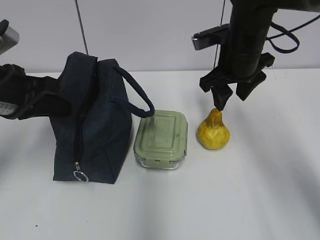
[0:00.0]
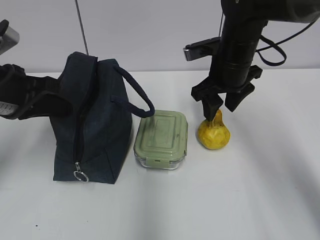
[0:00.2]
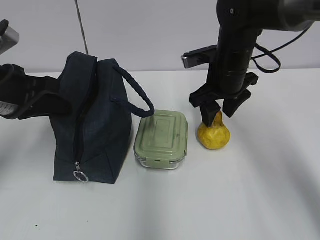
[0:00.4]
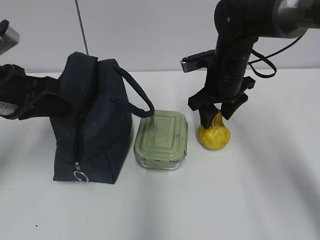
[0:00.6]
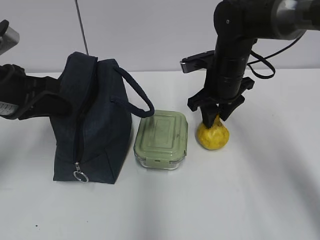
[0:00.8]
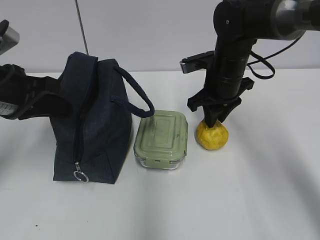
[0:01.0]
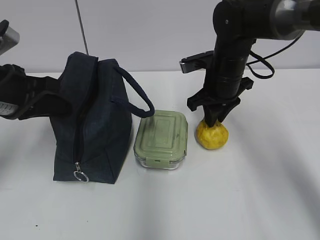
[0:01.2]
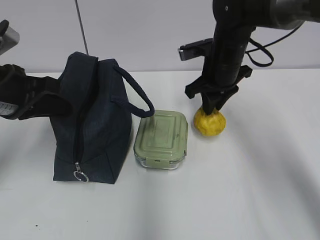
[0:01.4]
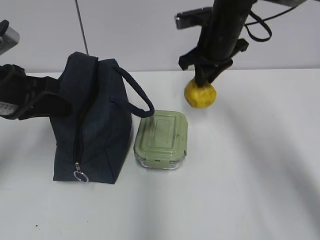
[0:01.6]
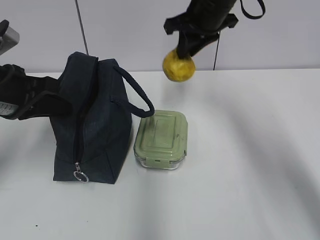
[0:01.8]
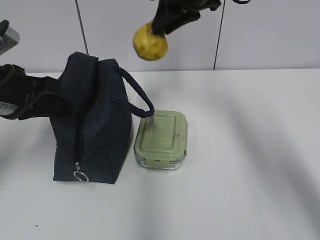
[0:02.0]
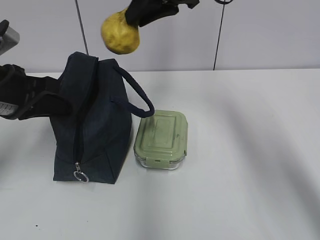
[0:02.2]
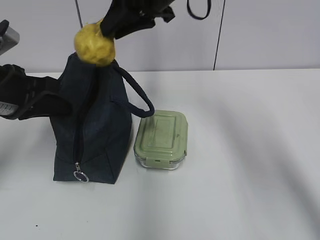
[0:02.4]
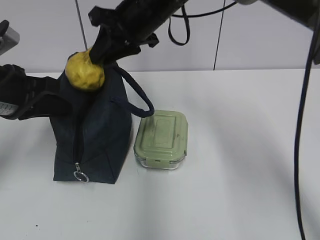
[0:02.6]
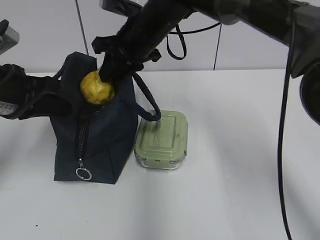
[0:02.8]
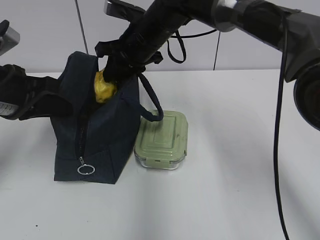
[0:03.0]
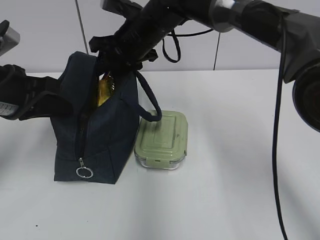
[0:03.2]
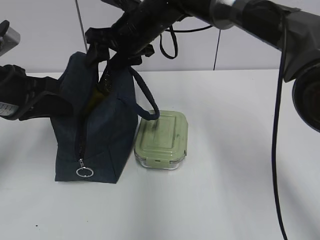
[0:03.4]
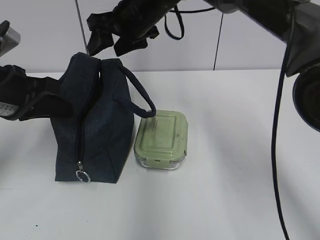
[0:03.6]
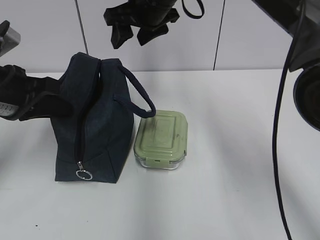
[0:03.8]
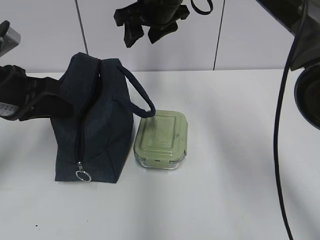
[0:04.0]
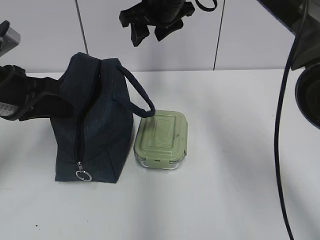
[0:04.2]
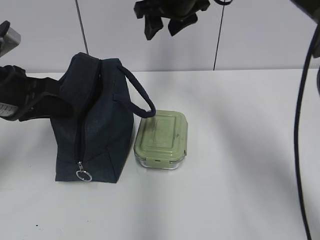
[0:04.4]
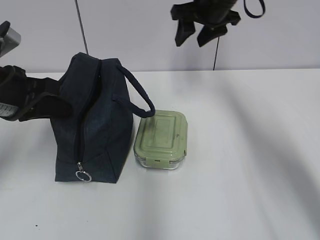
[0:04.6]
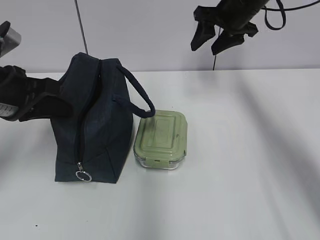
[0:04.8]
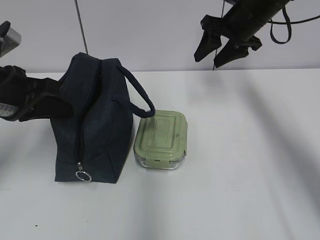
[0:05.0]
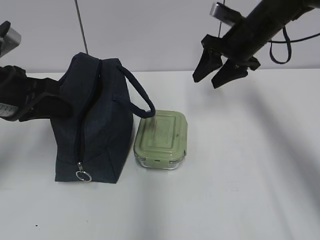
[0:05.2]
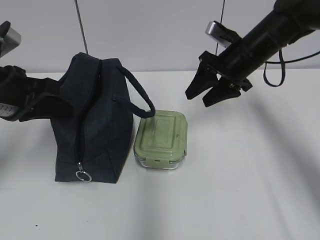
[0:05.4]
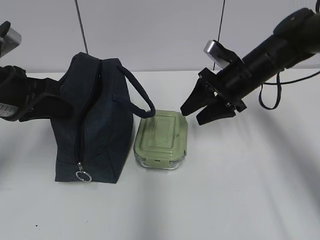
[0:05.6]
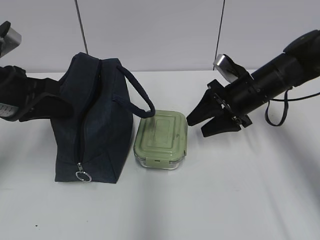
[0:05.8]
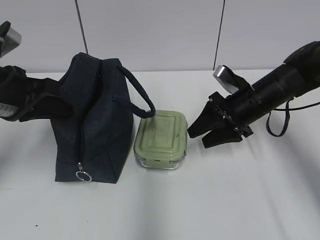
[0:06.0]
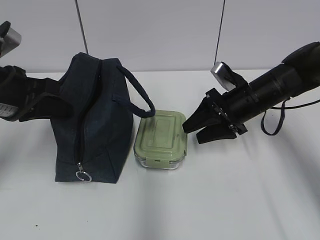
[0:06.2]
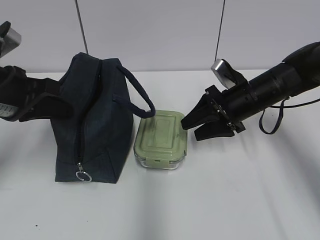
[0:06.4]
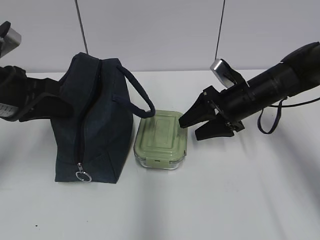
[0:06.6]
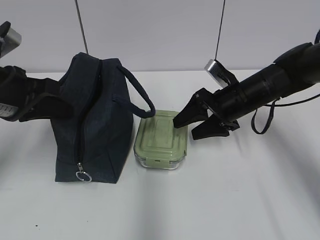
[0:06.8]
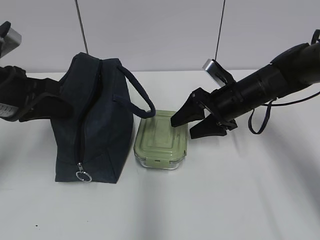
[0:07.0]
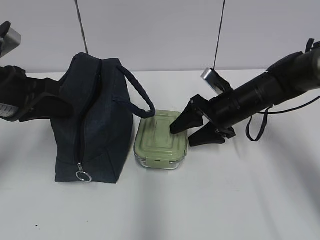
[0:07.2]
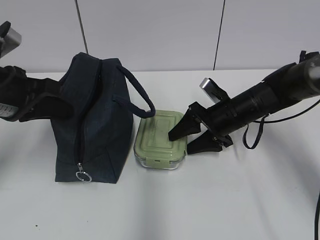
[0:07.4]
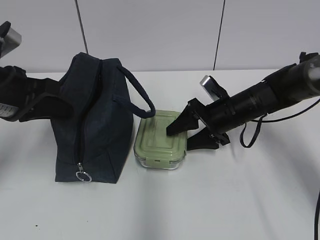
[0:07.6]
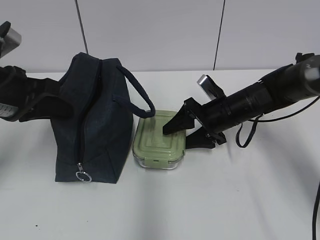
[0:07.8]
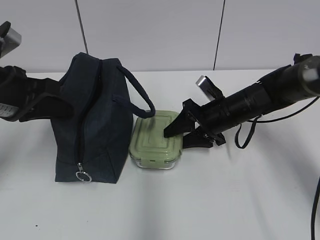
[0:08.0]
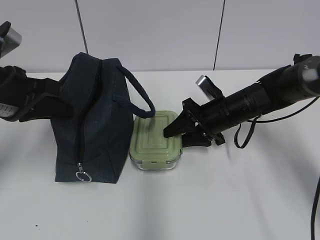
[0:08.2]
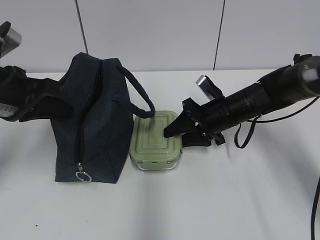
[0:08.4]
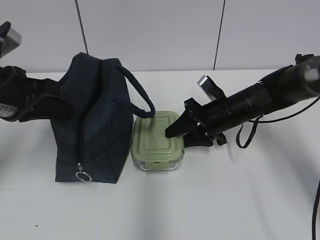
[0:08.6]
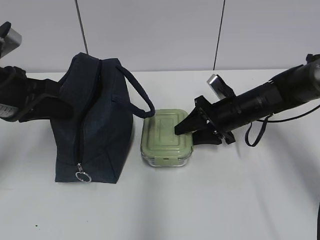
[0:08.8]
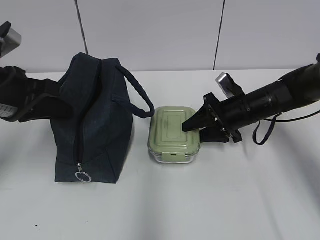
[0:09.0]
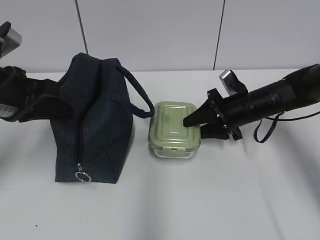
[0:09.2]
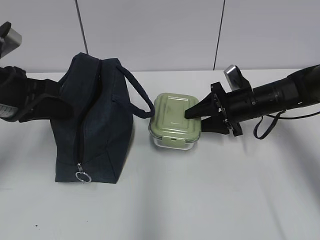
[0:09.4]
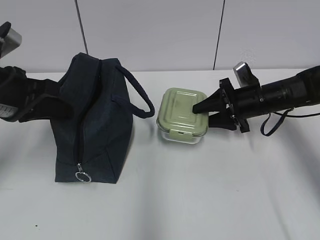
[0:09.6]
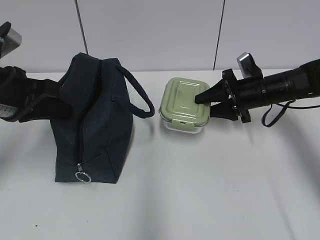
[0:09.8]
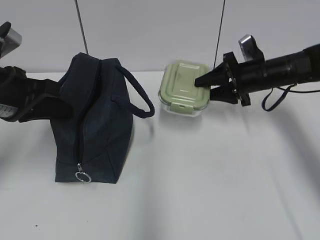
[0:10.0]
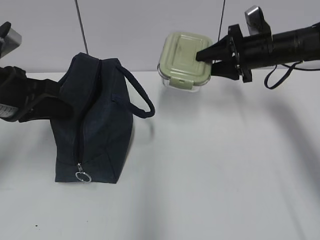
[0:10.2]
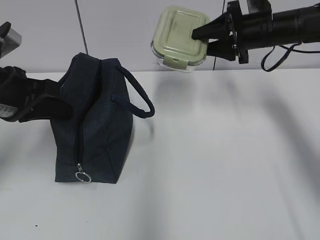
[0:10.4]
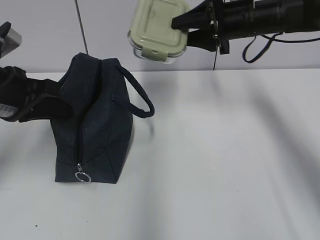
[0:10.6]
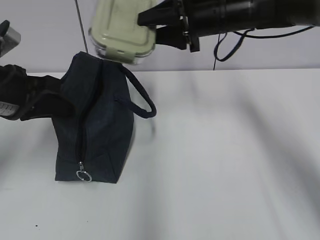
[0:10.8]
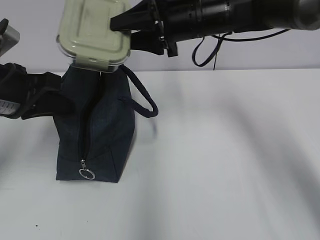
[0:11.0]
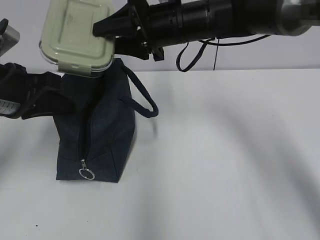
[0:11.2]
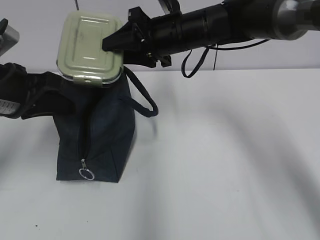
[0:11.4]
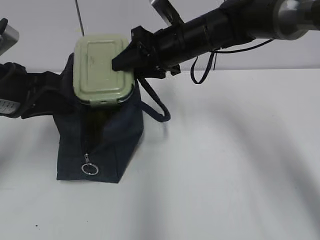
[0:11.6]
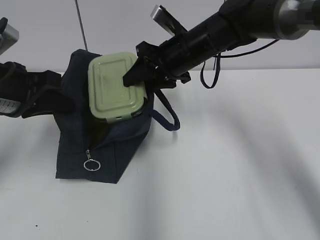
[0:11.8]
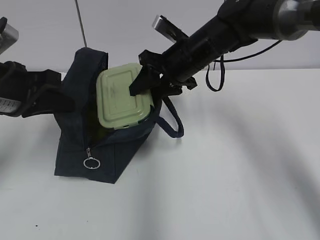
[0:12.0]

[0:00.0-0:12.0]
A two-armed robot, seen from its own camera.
Step, 0:01.2 to 0:03.4: Place it into the bag with your right hand.
Step, 0:03.6 to 0:08.2: Grab the lunch box with your right hand.
0:00.0 to 0:01.6: The right gripper shifts by roughly 5 cm, and closes.
0:01.6 to 0:03.0: The right gripper is displaced to the left by about 10 cm.
0:03.0 to 0:04.4: The right gripper travels to the right and upward by roughly 10 cm, and opens.
0:04.4 to 0:06.0: The right gripper travels downward, to the right and backward by roughly 20 cm.
0:06.0 to 0:07.6: The grippers make only small movements.
0:07.6 to 0:09.0: The right gripper closes up.
0:09.0 to 0:10.4: The right gripper moves upward, approximately 15 cm.
0:10.4 to 0:12.0: The right gripper heads to the left, covering approximately 15 cm.

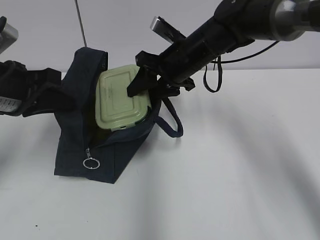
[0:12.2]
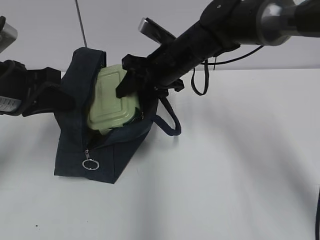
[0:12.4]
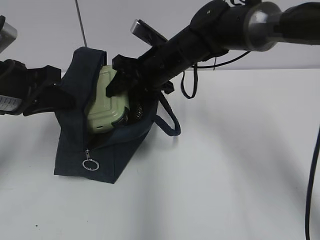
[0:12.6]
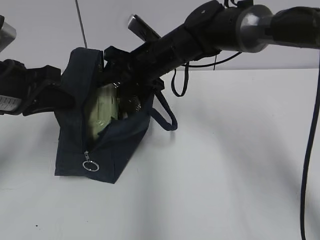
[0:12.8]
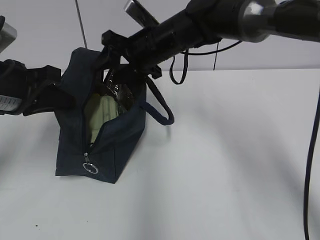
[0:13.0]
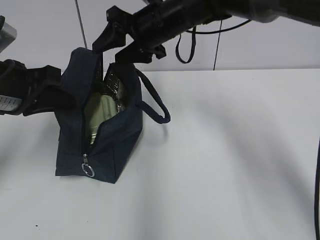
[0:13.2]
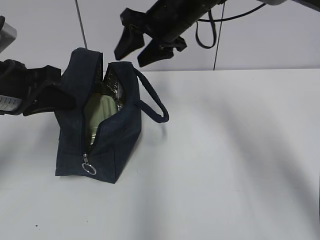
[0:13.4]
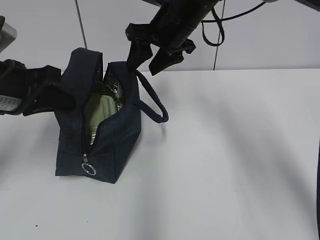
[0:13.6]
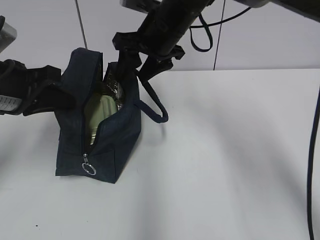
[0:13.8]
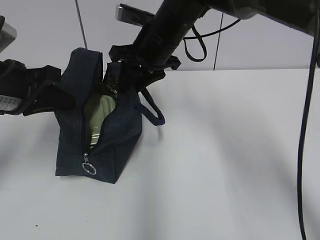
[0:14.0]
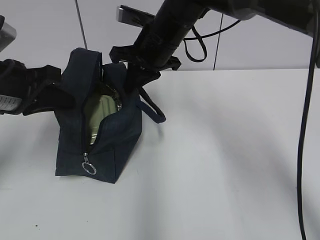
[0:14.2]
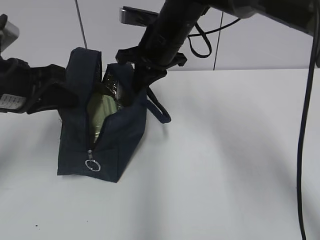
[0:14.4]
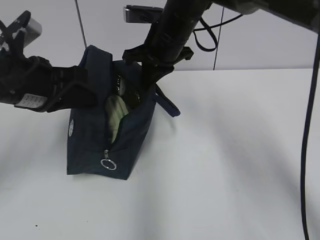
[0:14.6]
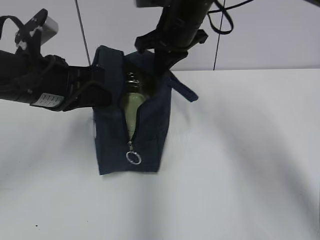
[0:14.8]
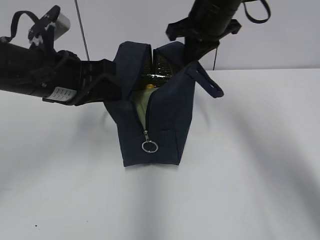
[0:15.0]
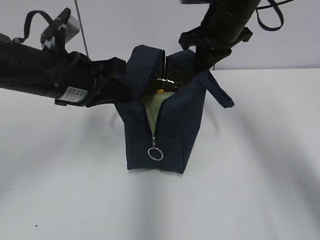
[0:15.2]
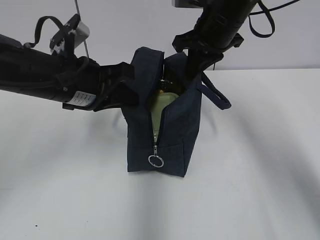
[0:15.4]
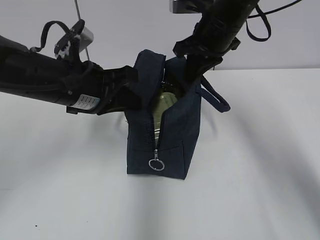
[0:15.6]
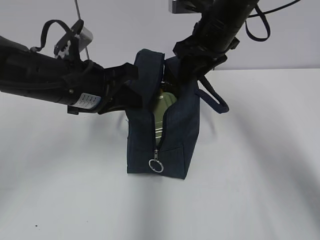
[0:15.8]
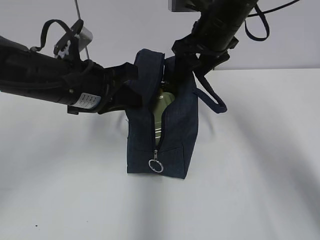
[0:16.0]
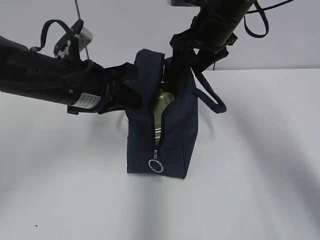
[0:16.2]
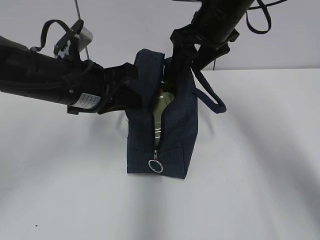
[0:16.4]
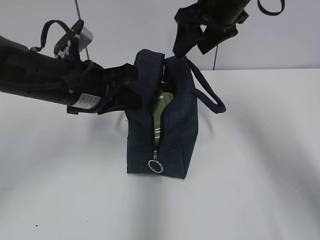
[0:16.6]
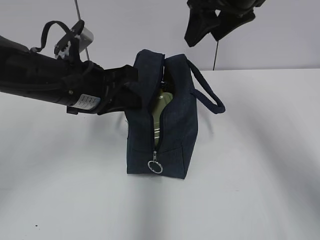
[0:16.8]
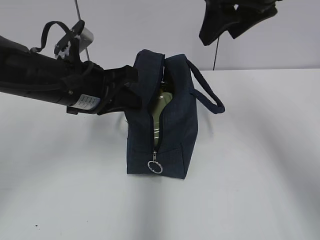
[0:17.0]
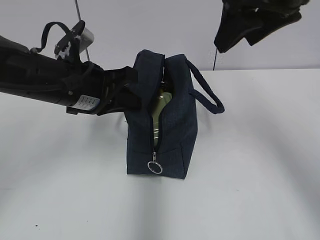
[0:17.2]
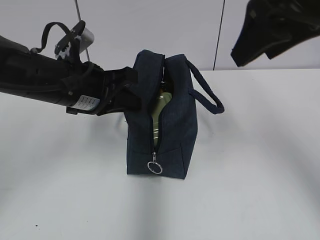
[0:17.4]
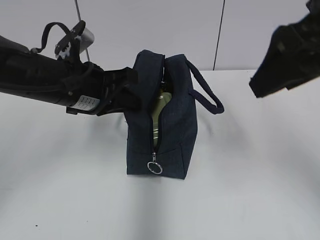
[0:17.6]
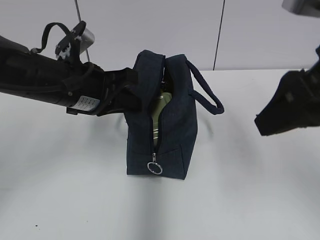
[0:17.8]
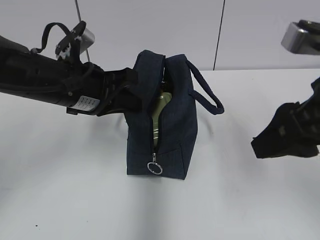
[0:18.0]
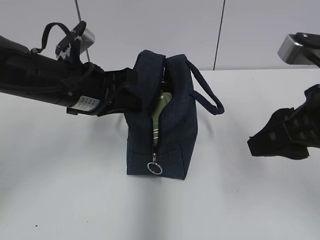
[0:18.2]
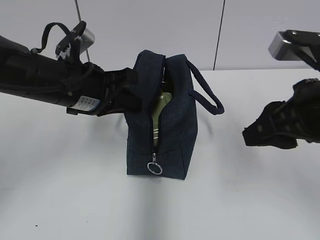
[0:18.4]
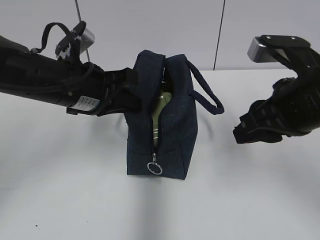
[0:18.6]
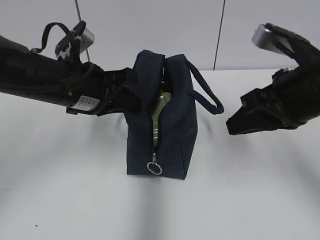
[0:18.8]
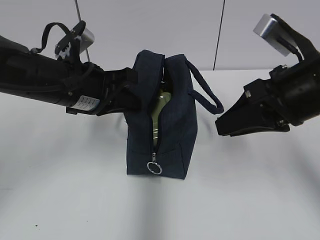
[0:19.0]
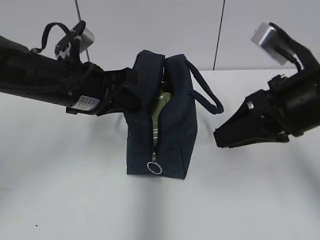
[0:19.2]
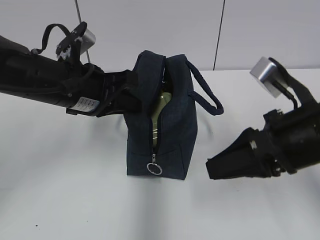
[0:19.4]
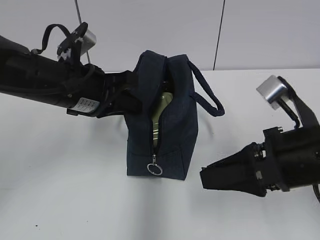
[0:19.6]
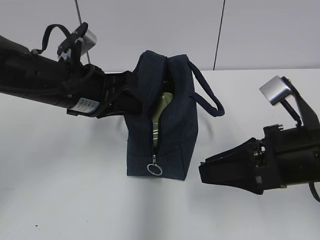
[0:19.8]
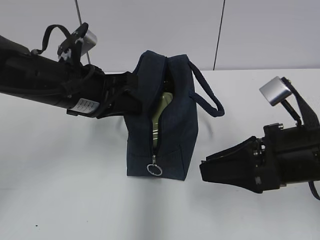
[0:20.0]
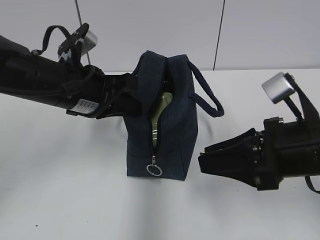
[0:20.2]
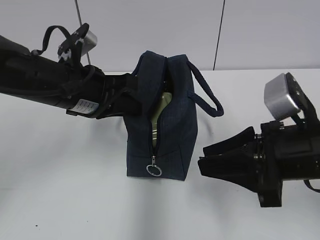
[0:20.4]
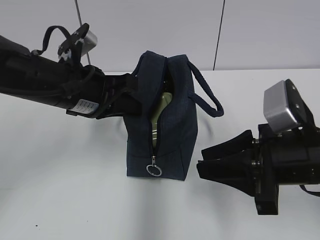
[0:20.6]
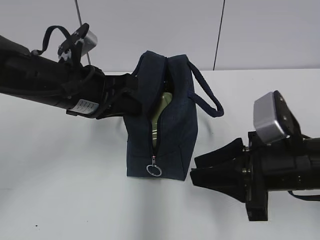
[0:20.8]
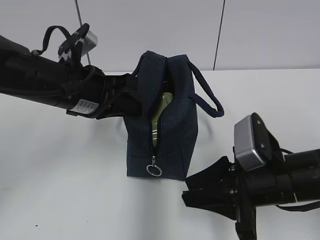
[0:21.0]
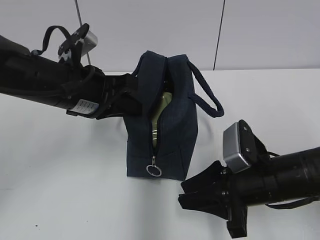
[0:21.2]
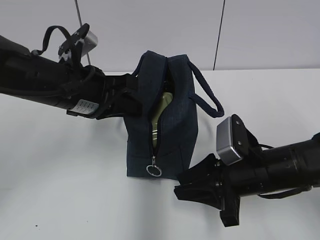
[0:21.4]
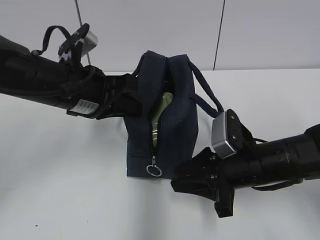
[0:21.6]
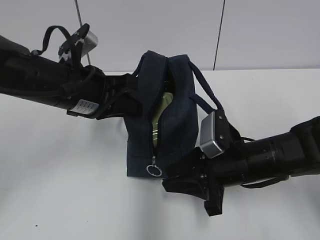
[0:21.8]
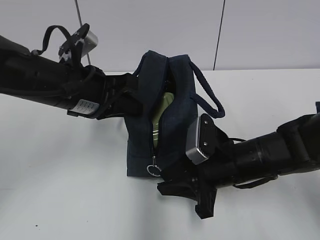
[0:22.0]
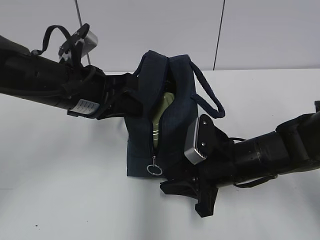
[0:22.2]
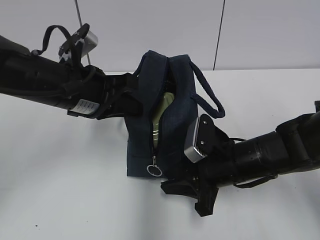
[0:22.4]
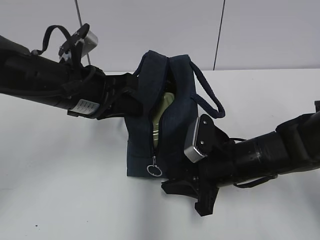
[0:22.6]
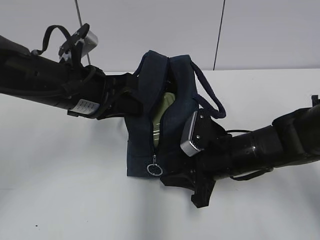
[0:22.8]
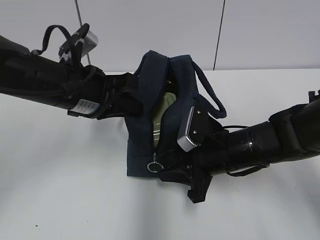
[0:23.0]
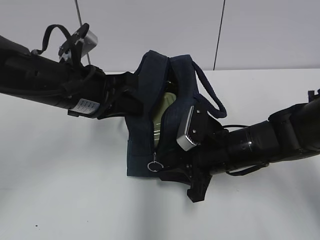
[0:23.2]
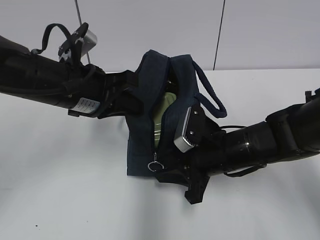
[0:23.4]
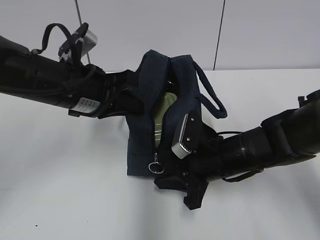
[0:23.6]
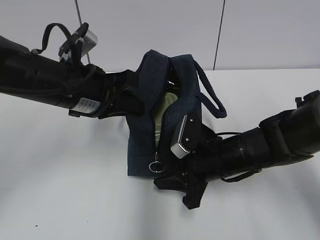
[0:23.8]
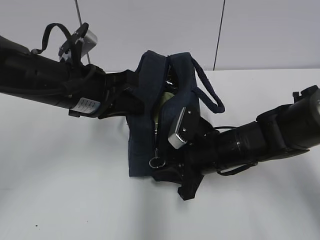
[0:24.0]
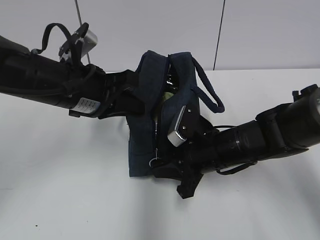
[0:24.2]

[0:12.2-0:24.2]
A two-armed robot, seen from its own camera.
Step, 0:13.2 to 0:14.0: Grab the lunch bag with your right hand.
Step, 0:14.2 to 0:15.8: Move the lunch bag to the right.
0:12.2 to 0:13.8: The right gripper moves upward, about 5 cm.
0:13.8 to 0:15.2: Both grippers move to the right, some 10 cm. The right gripper closes its fingers.
0:15.2 to 0:16.6: The right gripper opens its fingers.
0:16.6 to 0:18.2: The right gripper heads backward, covering approximately 20 cm.
0:18.2 to 0:19.8: The right gripper moves downward, approximately 5 cm.
0:19.8 to 0:21.2: The right gripper moves downward, about 10 cm.
0:21.2 to 0:22.6: The right gripper shifts by about 5 cm.
0:22.6 to 0:24.2: The grippers move only a little.
